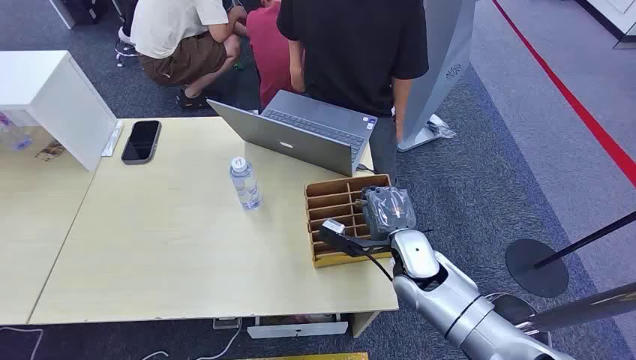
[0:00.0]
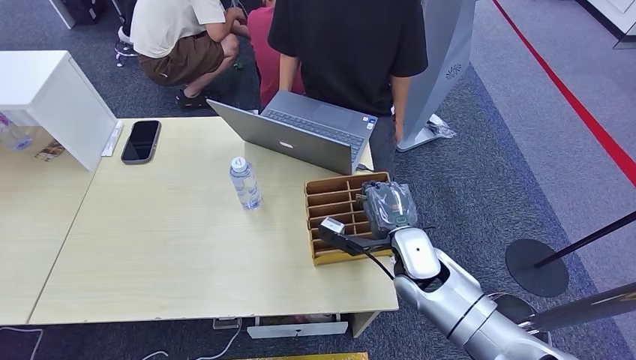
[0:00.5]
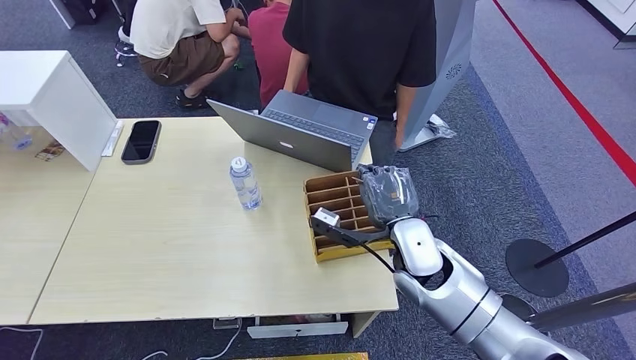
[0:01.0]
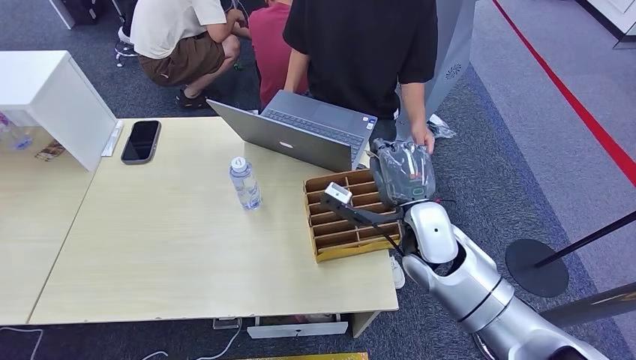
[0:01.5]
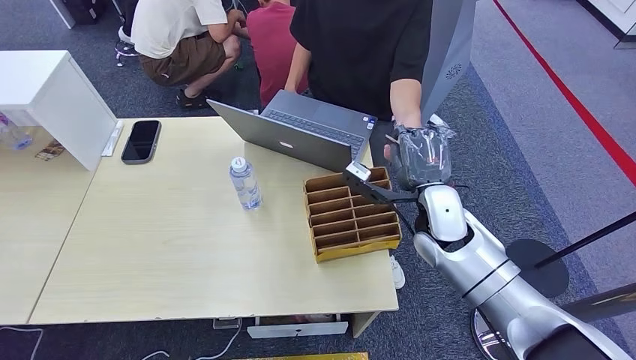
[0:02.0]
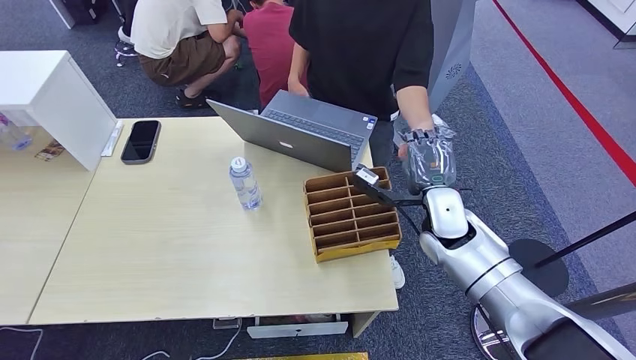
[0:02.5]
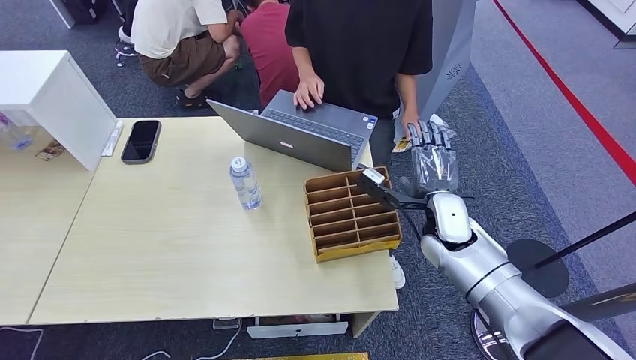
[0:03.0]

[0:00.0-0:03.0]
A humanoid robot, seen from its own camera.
Step, 0:00.0 to 0:01.5: Pick up the key card from the card box.
Step, 0:02.0 to 0:03.0: Hand the key card to the target.
0:01.5 to 0:03.0: The right hand moves to the right and forward, roughly 10 cm.
